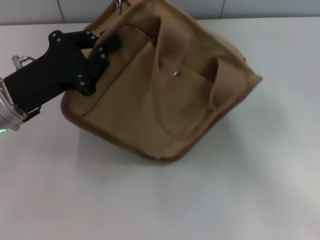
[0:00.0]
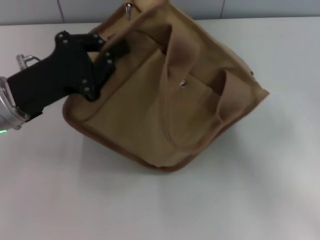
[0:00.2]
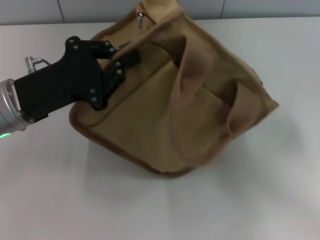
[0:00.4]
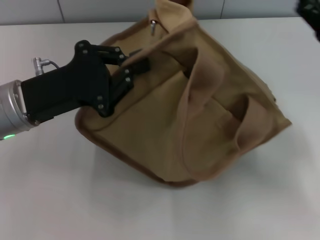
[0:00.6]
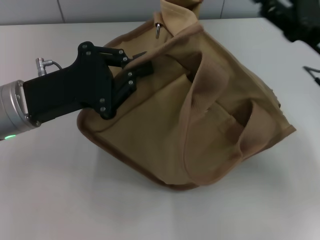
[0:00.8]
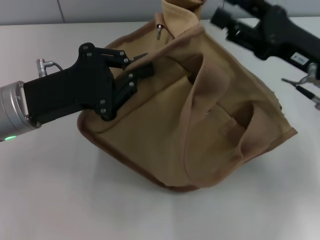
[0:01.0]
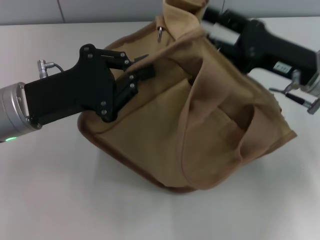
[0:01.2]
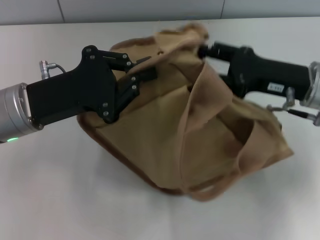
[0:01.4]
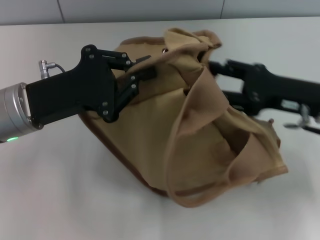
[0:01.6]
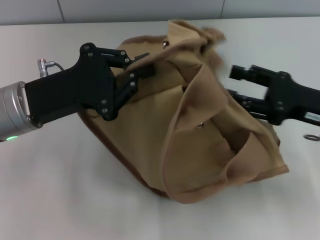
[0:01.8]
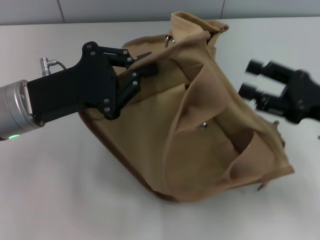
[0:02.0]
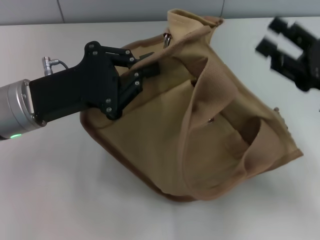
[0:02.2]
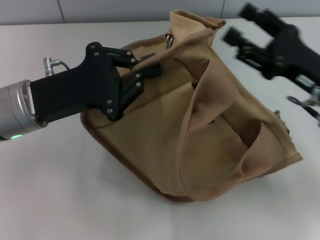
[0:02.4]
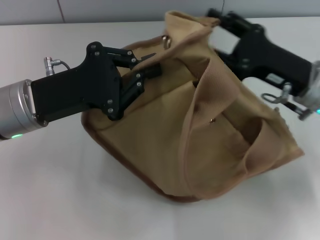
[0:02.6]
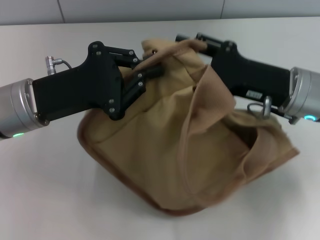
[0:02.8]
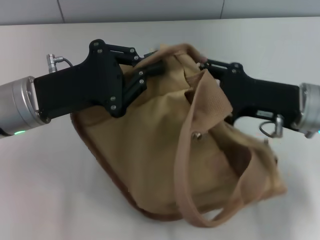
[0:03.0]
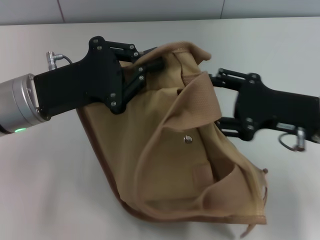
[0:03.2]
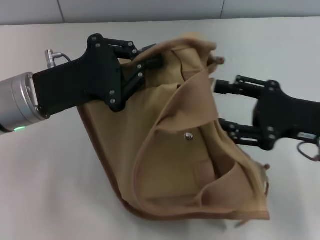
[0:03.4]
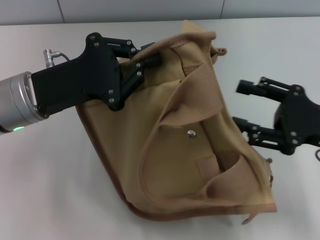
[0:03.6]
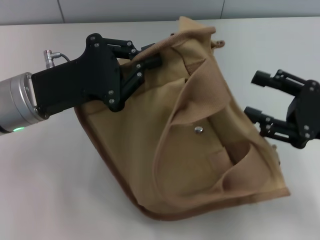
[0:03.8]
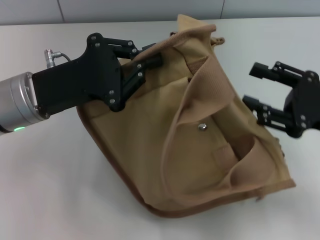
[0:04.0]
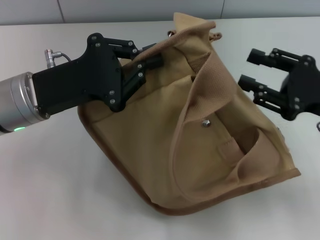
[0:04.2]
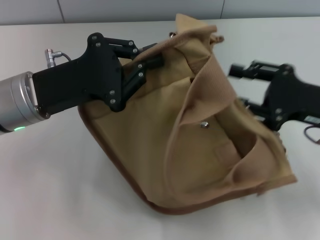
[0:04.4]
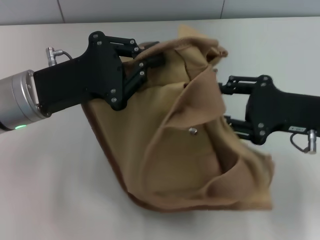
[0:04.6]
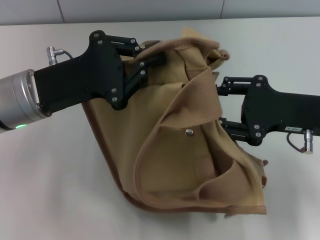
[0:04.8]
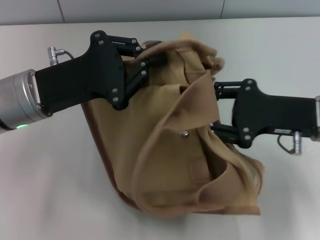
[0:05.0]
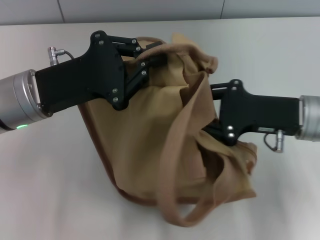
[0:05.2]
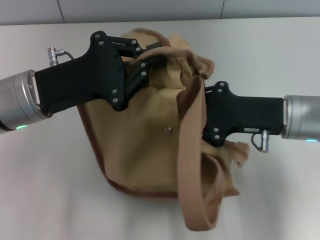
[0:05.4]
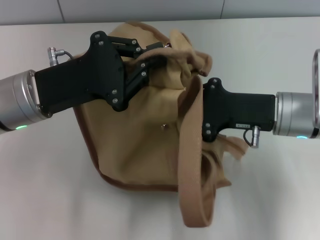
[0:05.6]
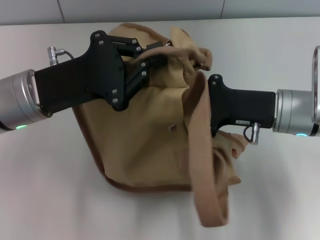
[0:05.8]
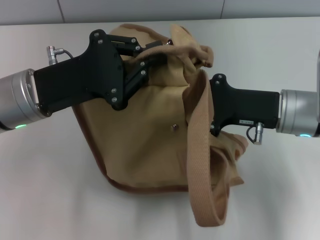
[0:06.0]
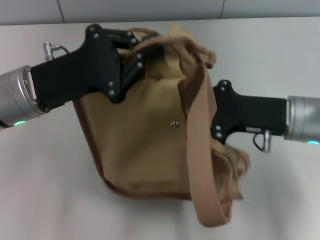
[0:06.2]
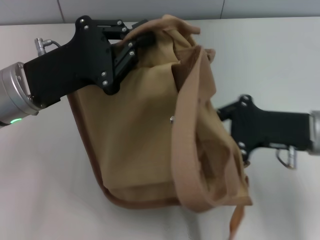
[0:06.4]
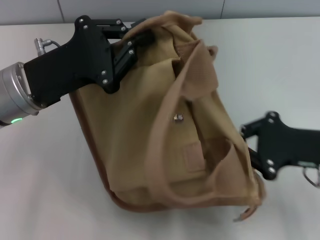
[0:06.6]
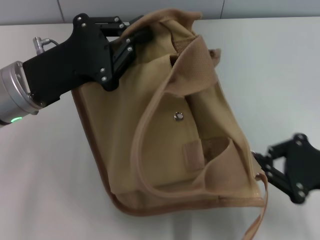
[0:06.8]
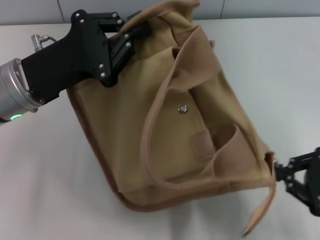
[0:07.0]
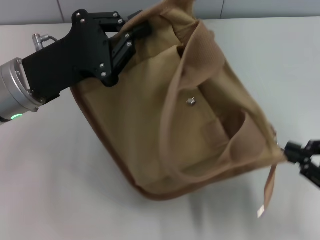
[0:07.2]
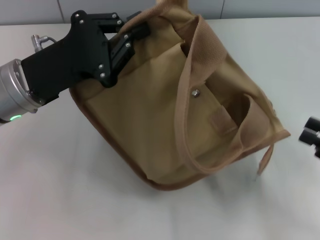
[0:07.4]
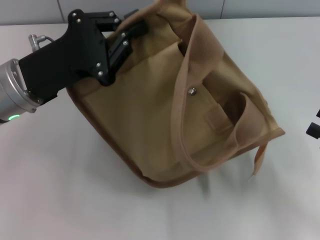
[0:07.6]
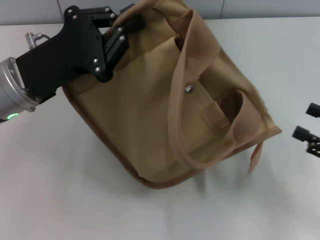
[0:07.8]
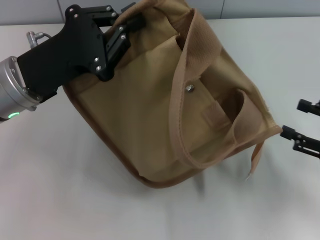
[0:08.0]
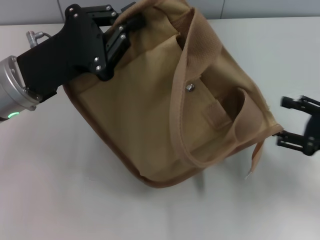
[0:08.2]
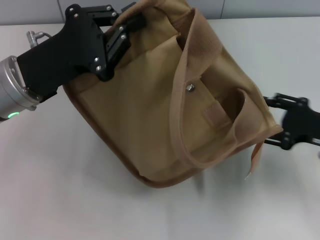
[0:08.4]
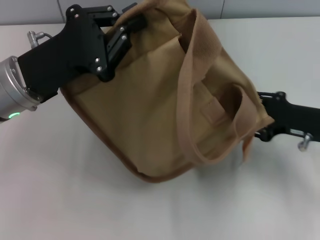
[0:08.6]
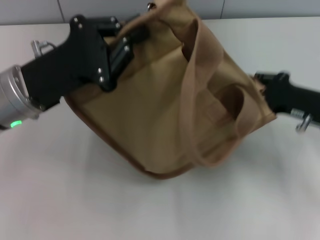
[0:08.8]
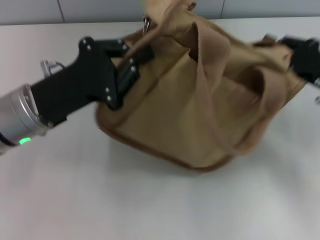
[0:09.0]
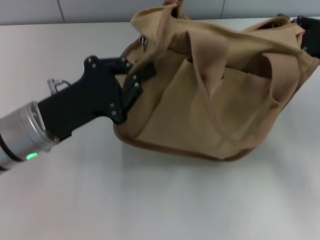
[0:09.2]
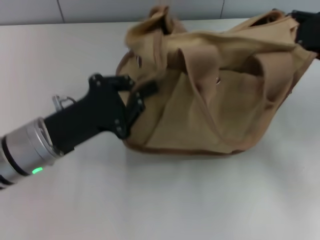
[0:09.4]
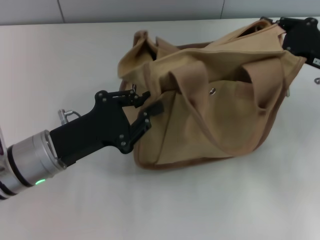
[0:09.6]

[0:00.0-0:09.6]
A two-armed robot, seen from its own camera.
Step, 0:00.0 to 0:07.4: Pull open the zipper with your right hand.
0:00.0 to 0:01.6: The right gripper moves to the left and forward, roughly 10 cm.
0:01.6 to 0:03.2: The right gripper goes left and right, roughly 10 cm each way, reversing 2 times.
0:03.2 to 0:04.8: The grippers move only a little.
0:04.8 to 0:06.4: The right gripper closes its fingers.
0:06.4 to 0:08.0: The right gripper moves to the right and backward, some 10 cm, and opens.
0:08.0 to 0:09.6: The right gripper is displaced forward, upward and to the left by about 15 cm, and closes its fingers. Meanwhile the left gripper goes about 5 cm downward.

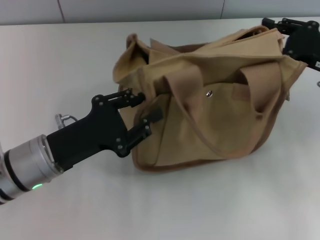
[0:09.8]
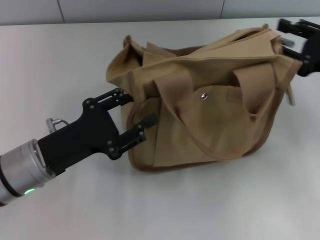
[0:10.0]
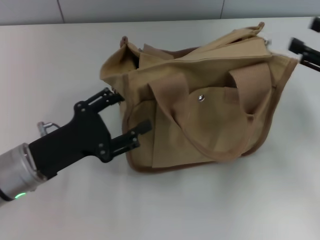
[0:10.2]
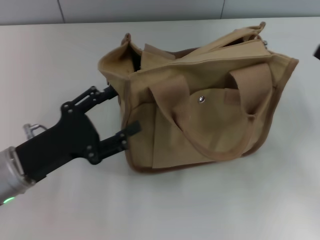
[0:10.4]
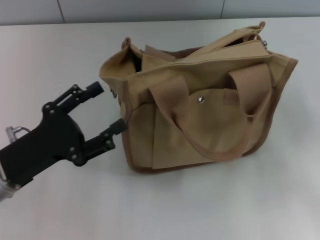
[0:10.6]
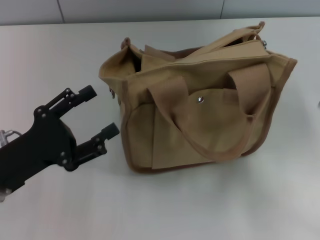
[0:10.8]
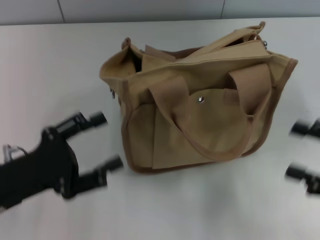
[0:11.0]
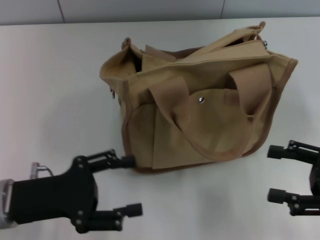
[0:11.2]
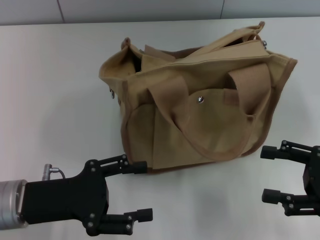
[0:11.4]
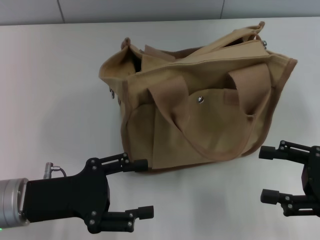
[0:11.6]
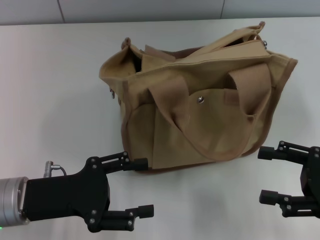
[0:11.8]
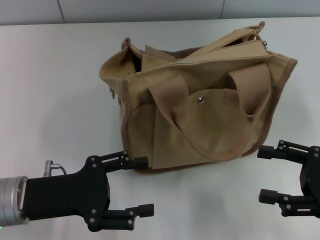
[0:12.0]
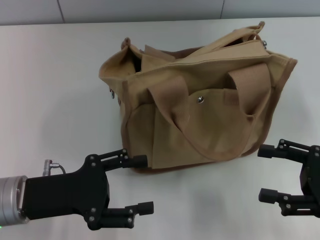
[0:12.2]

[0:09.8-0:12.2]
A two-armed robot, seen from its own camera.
0:09.8 to 0:11.0: The left gripper moves to the left, roughly 5 cm, and opens up. Meanwhile the right gripper is displaced backward by some 15 cm, and opens its fingers.
0:11.0 to 0:12.2: There are only small adjustments of the grippers.

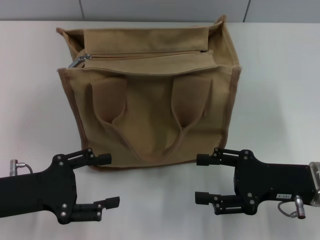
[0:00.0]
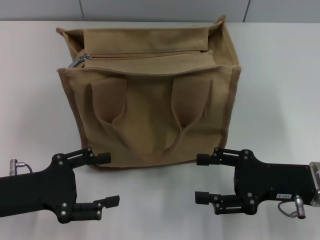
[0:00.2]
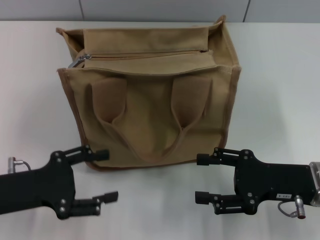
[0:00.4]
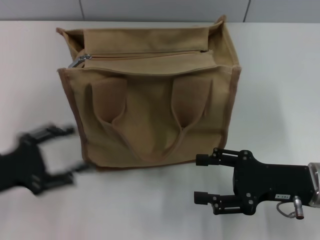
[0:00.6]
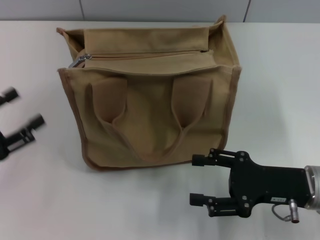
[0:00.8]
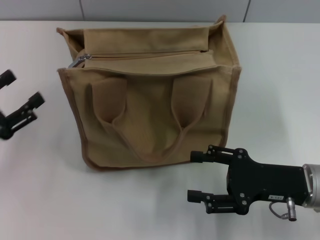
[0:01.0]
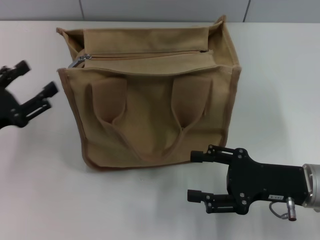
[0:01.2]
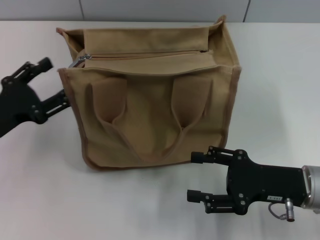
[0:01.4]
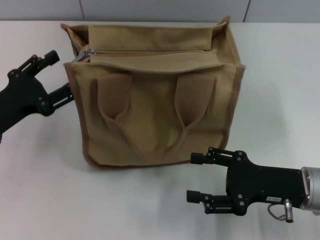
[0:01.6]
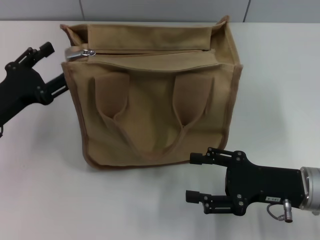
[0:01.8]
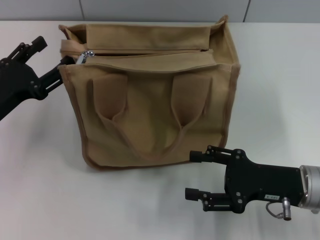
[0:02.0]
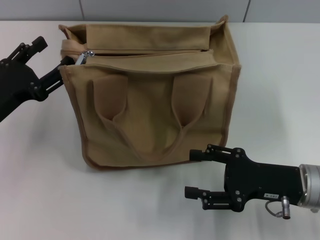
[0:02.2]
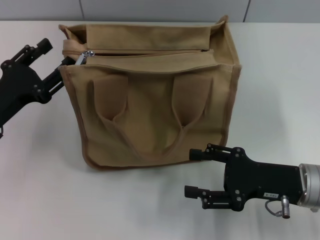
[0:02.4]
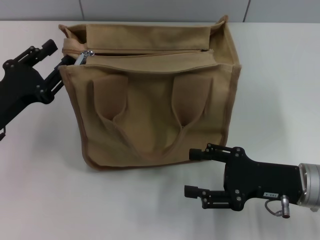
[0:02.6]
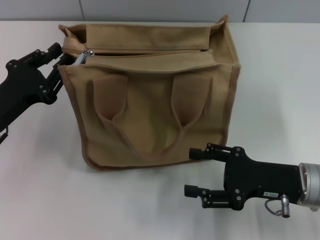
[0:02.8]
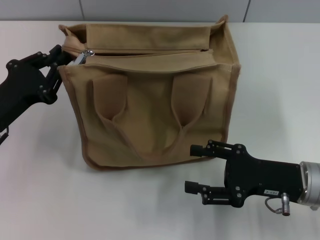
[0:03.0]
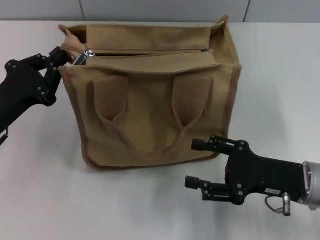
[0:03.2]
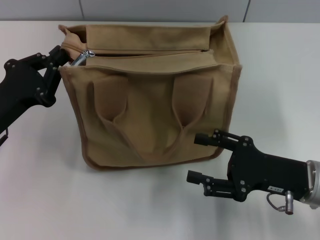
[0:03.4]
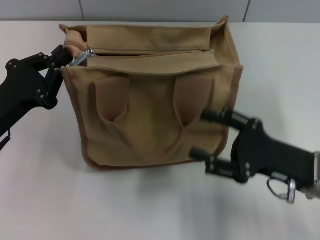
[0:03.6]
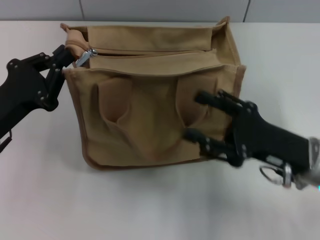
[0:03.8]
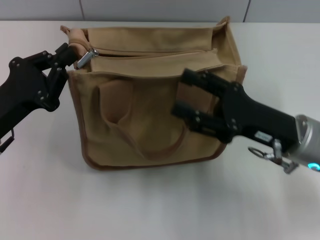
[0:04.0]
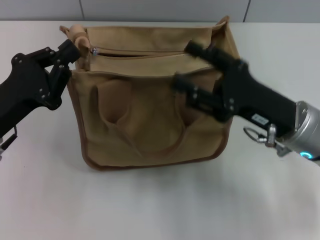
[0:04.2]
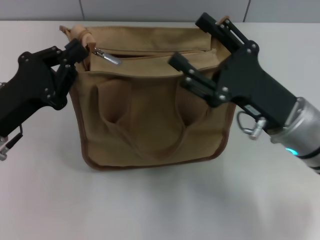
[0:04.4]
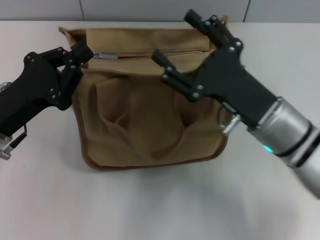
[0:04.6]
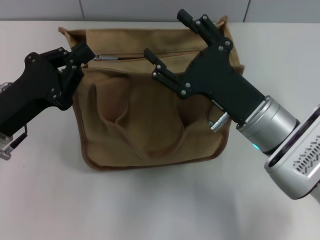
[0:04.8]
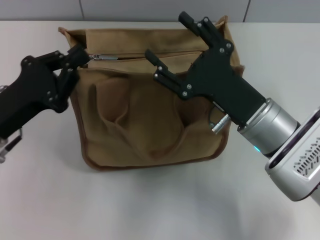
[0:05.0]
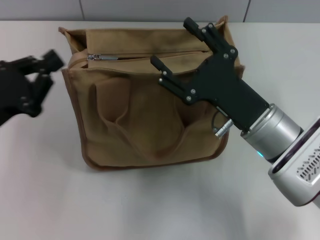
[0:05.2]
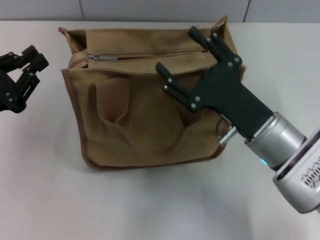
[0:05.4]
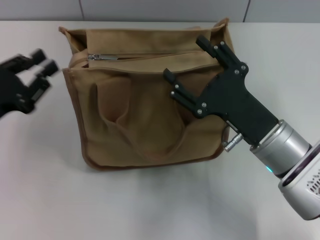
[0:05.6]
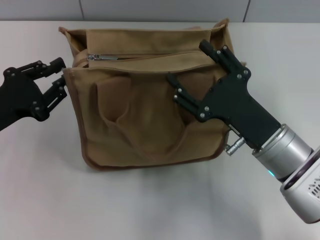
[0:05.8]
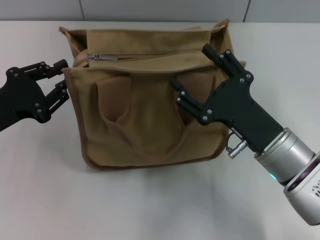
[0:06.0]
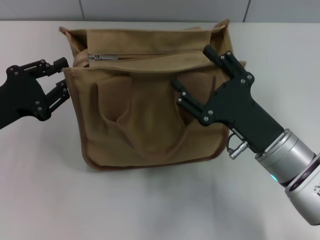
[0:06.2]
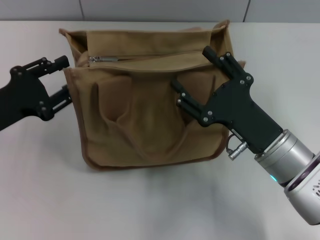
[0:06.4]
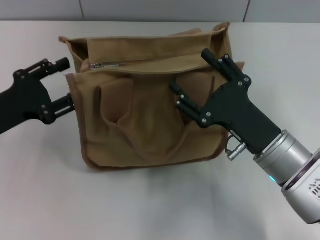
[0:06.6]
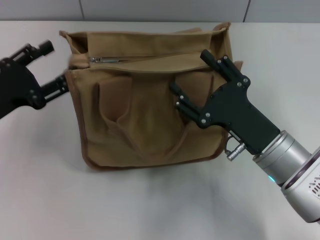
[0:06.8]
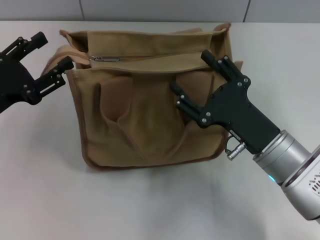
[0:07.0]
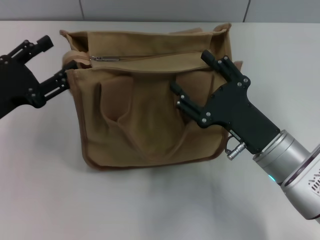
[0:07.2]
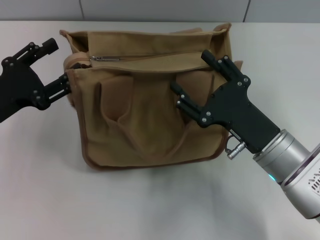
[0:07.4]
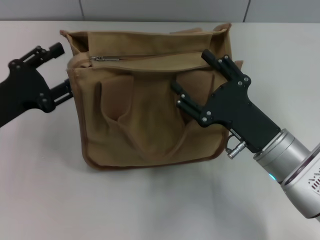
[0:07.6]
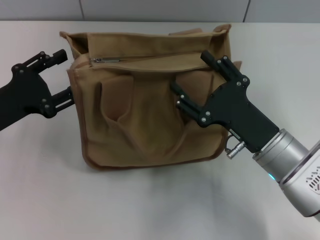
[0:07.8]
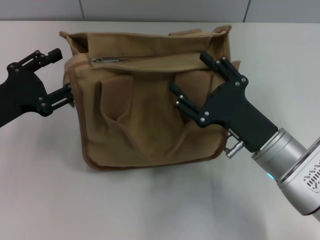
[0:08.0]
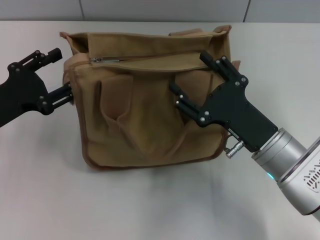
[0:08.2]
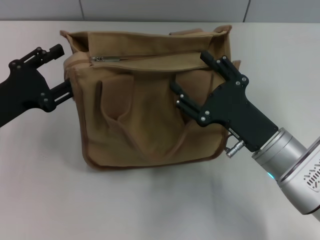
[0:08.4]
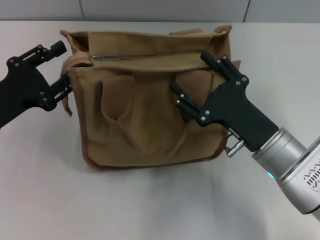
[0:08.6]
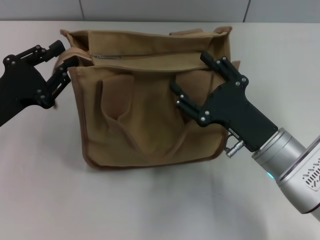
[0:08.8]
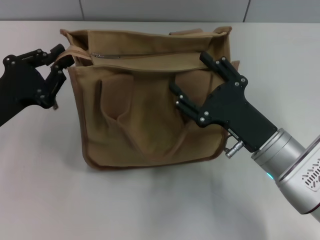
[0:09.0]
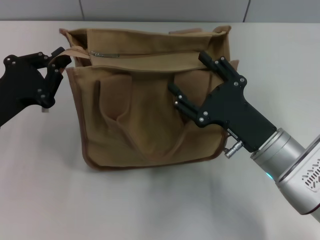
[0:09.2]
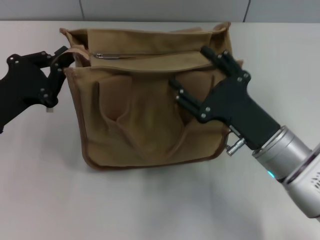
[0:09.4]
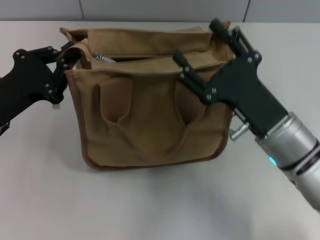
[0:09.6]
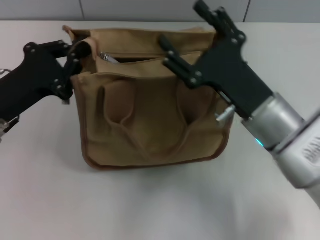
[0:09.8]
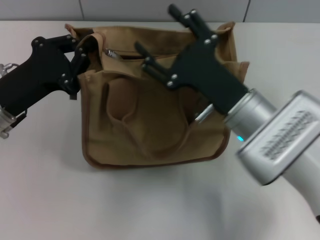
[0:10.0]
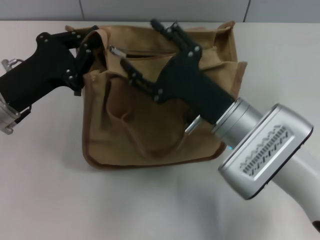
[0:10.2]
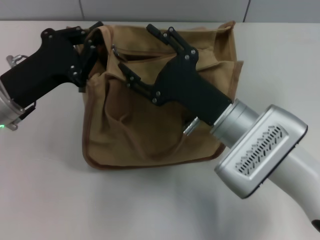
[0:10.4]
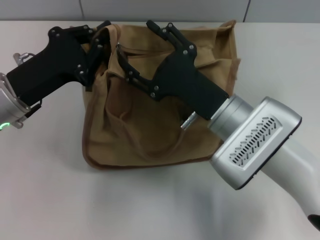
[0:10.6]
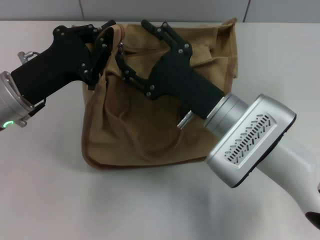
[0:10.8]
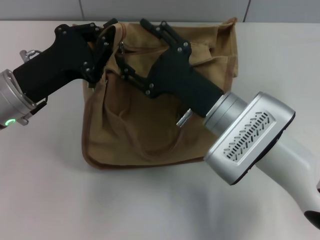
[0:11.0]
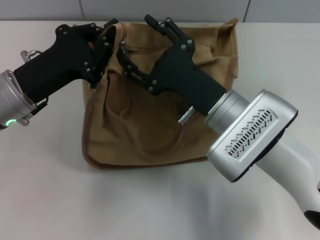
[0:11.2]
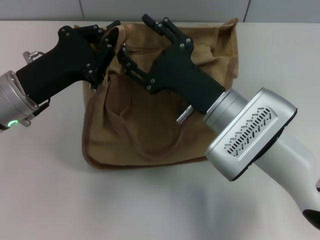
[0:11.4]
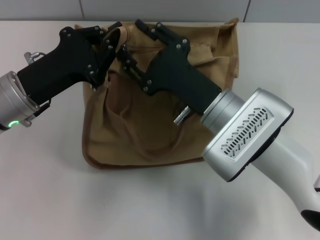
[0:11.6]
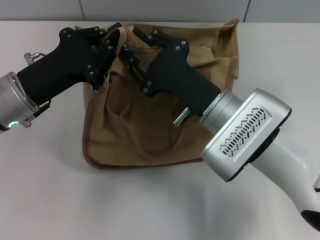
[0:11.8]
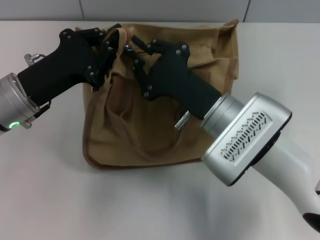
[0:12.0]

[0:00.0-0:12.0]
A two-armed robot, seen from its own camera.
0:00.0 to 0:01.6: The left gripper shifts approximately 5 cm forward.
0:01.6 to 0:03.0: The left gripper closes its fingers.
0:03.0 to 0:04.4: The right gripper shifts some 5 cm to the left, while the left gripper closes its fingers.
0:06.0 to 0:07.6: The left gripper opens its fingers.
0:07.6 to 0:09.0: The left gripper closes its fingers.
0:09.0 to 0:10.4: The right gripper is displaced to the left by some 5 cm, while the left gripper moves about 5 cm, and closes up.
0:10.4 to 0:12.0: The right gripper closes up.
